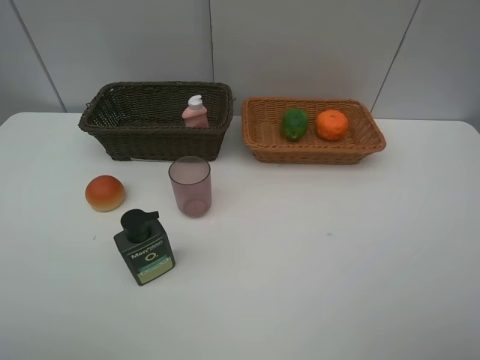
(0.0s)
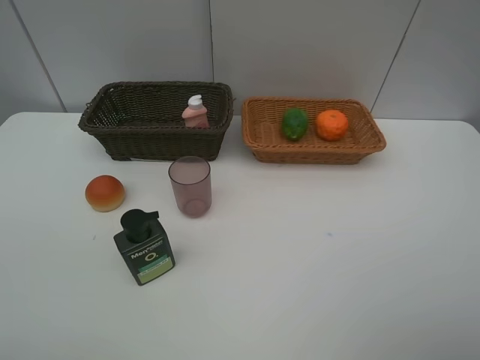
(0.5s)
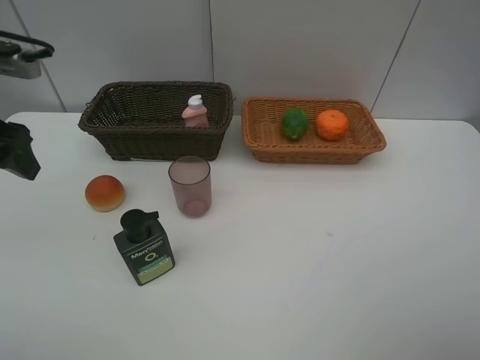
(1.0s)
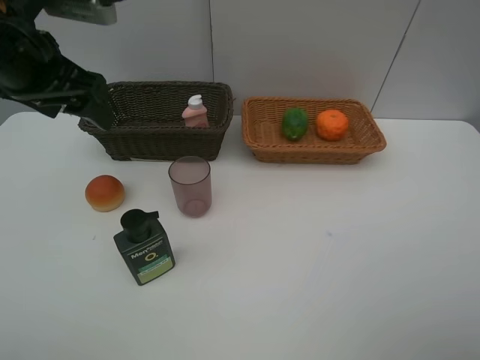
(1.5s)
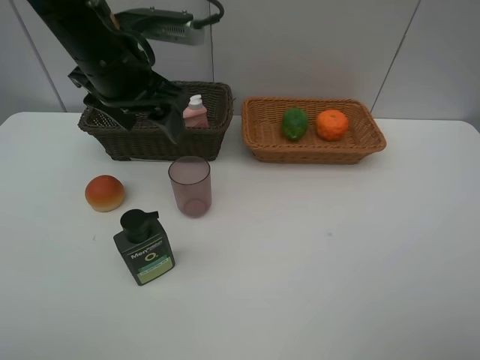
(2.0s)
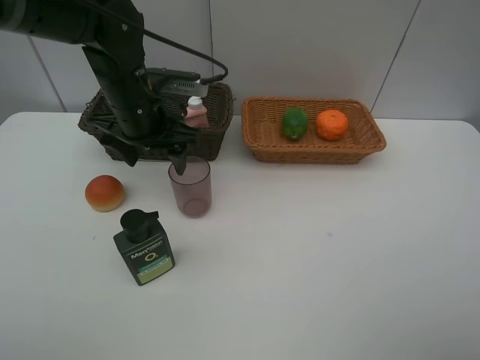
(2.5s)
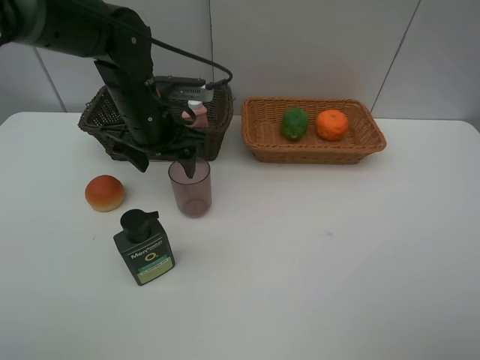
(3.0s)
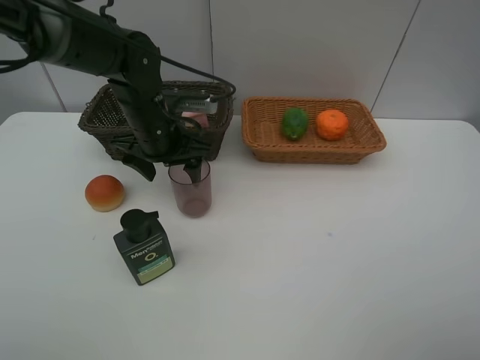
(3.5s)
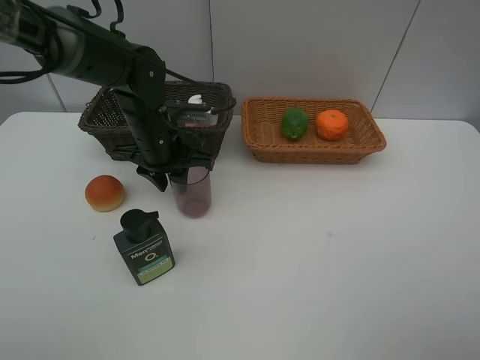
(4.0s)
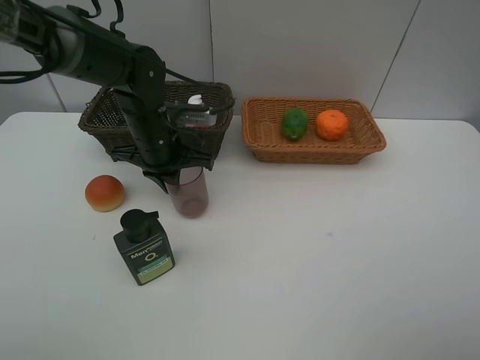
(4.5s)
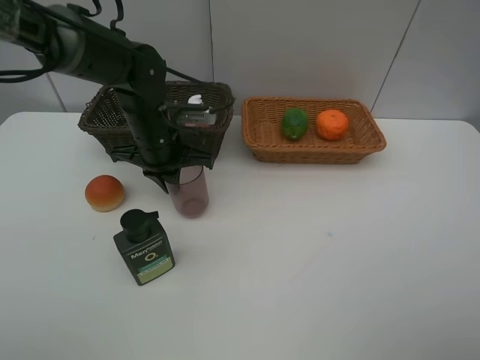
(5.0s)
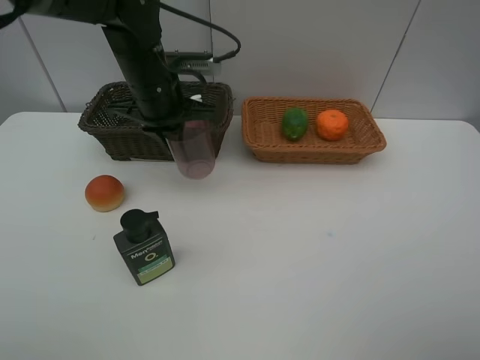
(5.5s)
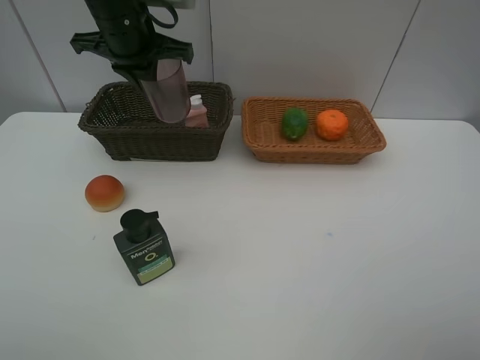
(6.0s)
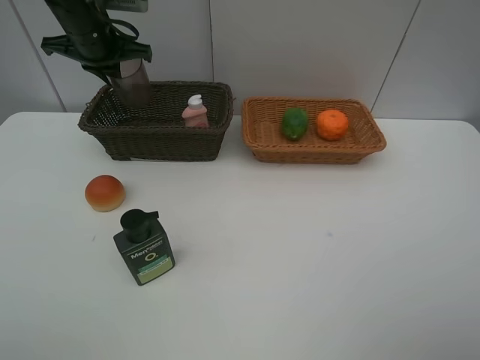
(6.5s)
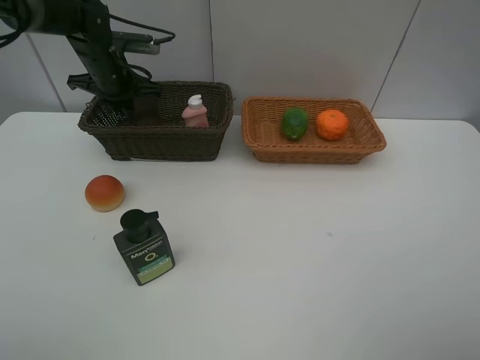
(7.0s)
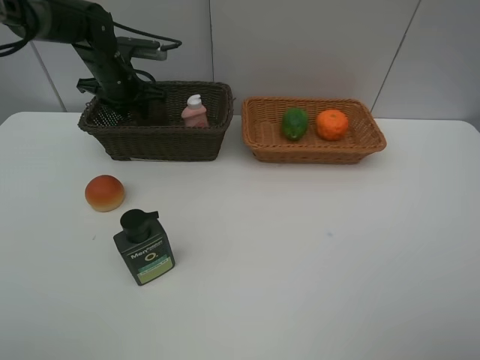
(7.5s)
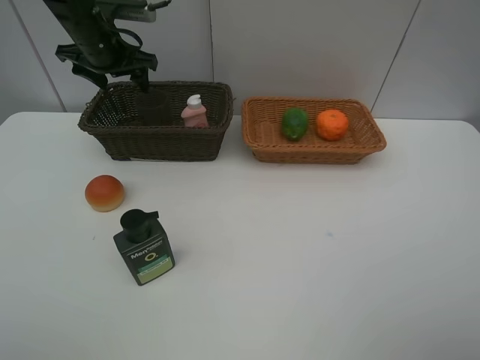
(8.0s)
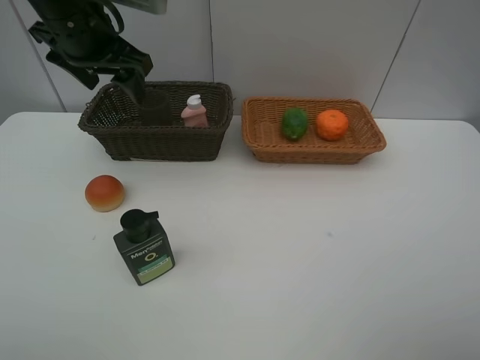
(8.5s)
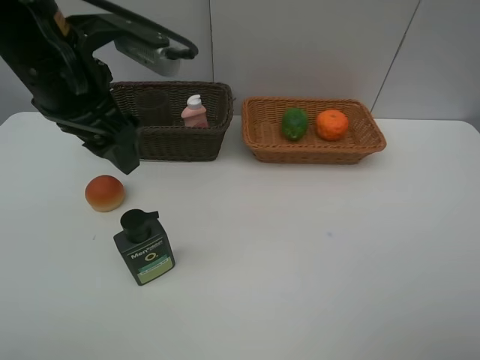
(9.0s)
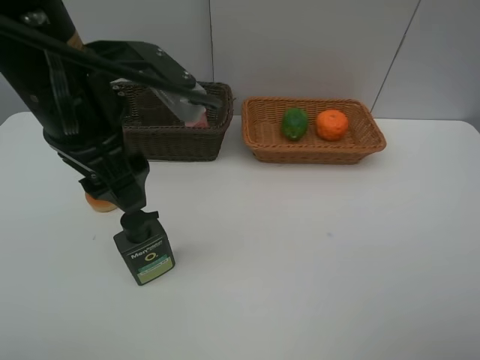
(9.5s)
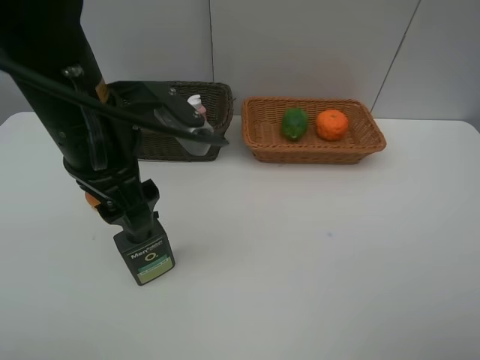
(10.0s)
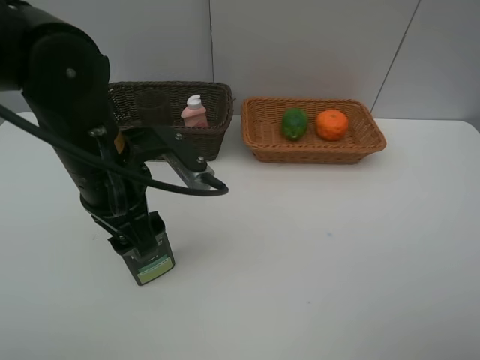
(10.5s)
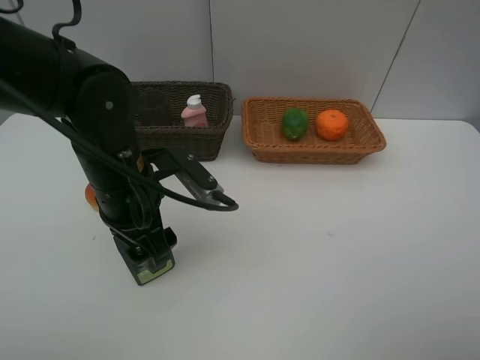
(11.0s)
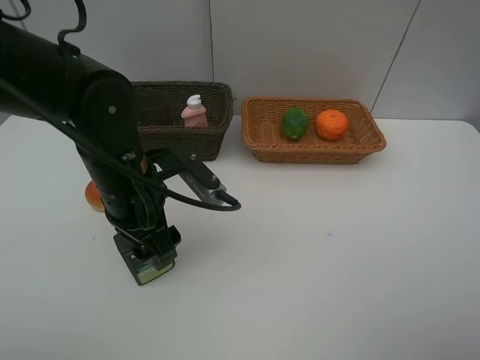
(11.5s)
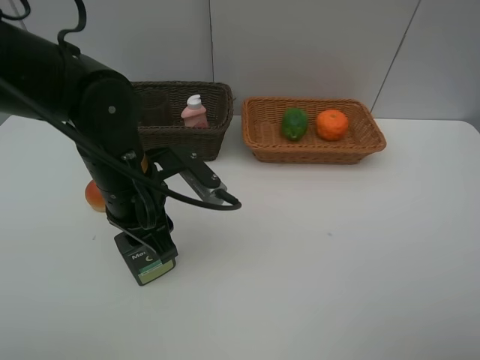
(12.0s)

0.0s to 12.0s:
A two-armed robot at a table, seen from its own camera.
Task of the whole recording: place multiple objects separately in different baskets.
0.0s to 2.0s: The left gripper travels forward and to the right by about 35 cm.
2.0s to 4.0s: The left gripper heads downward, covering about 15 cm, and closes up.
4.0s to 6.0s: The left gripper goes about 15 cm upward.
6.0s to 8.0s: The left gripper shifts approximately 10 cm to the left and forward, and opens its fingers.
8.0s to 10.0s: The left gripper moves backward and to the right, some 25 cm.
10.0s to 12.0s: The left gripper moves downward, approximately 10 cm, and closes.

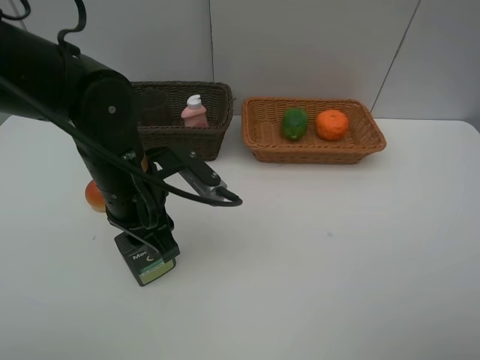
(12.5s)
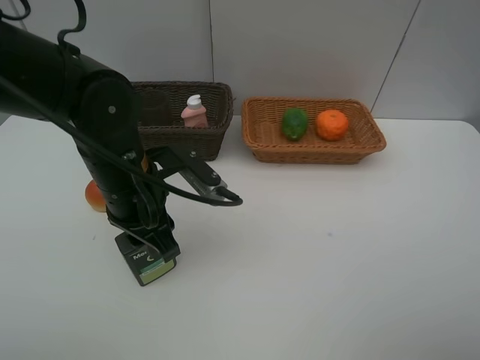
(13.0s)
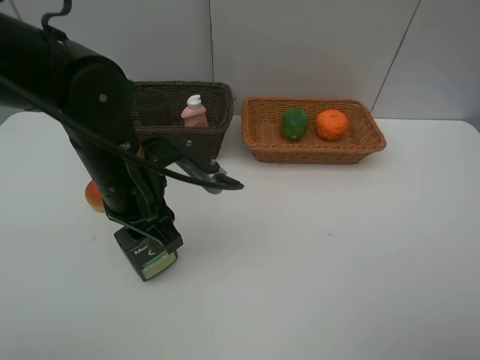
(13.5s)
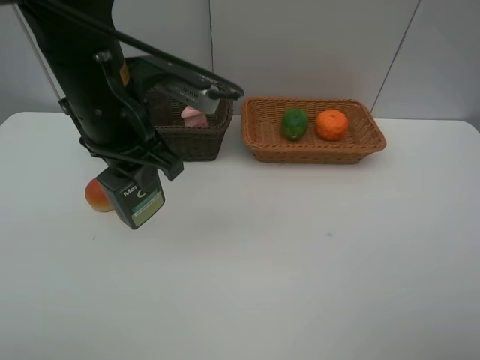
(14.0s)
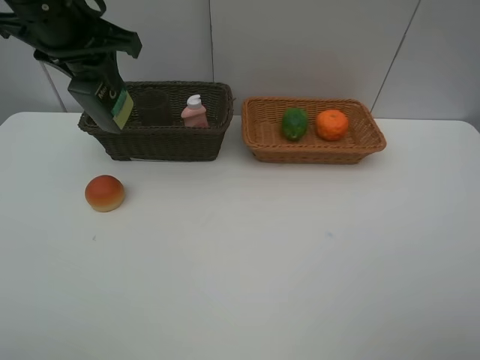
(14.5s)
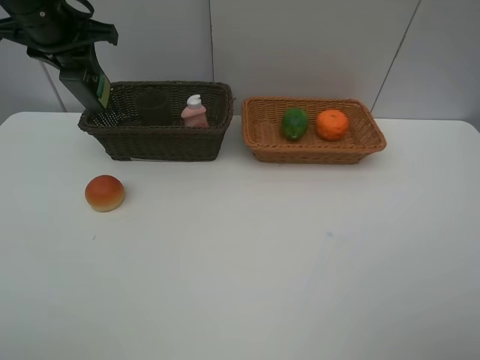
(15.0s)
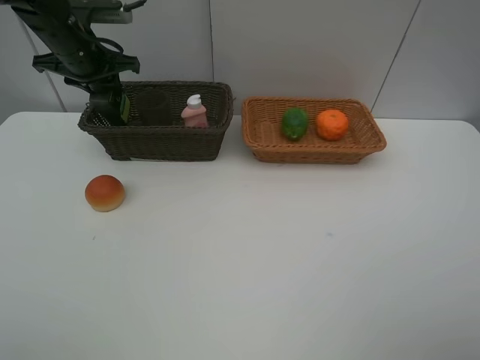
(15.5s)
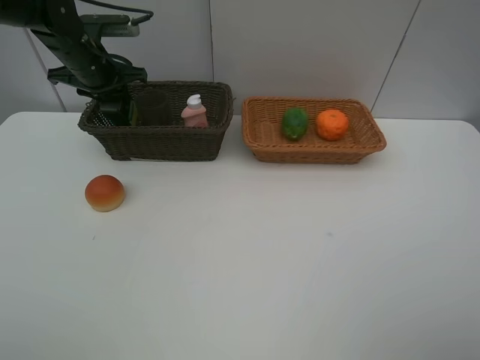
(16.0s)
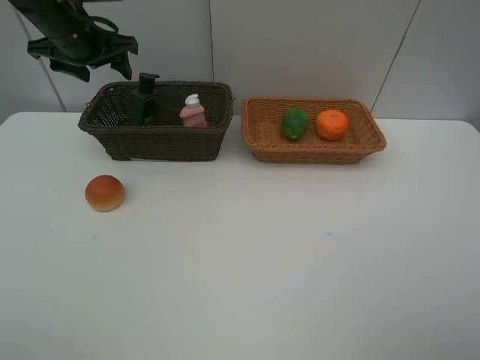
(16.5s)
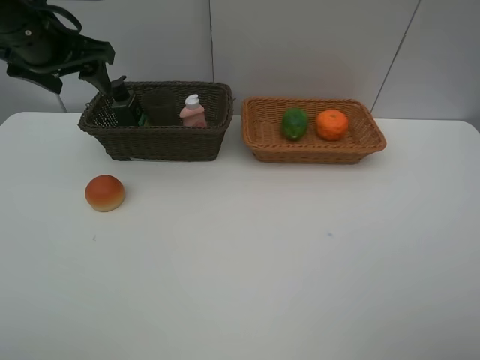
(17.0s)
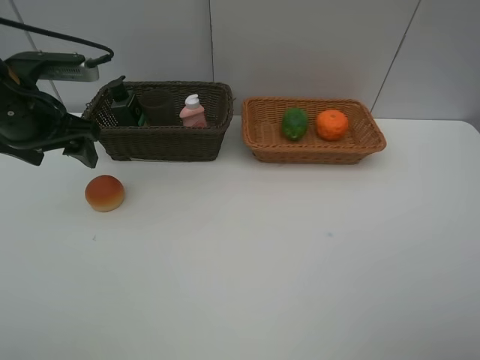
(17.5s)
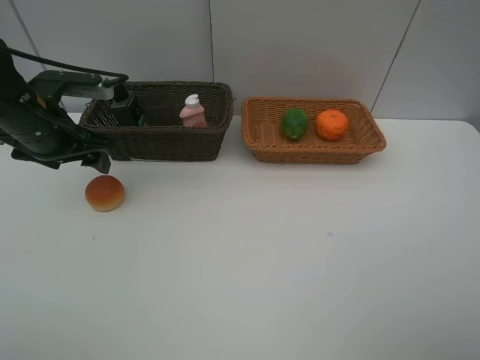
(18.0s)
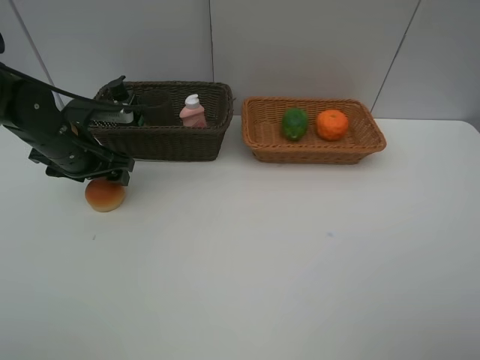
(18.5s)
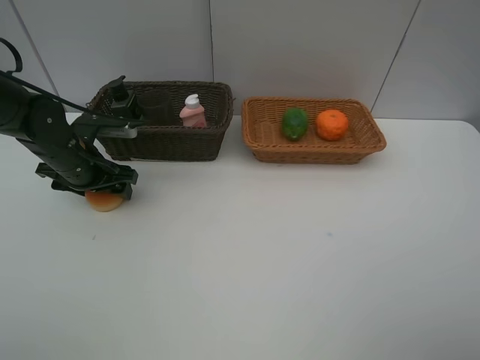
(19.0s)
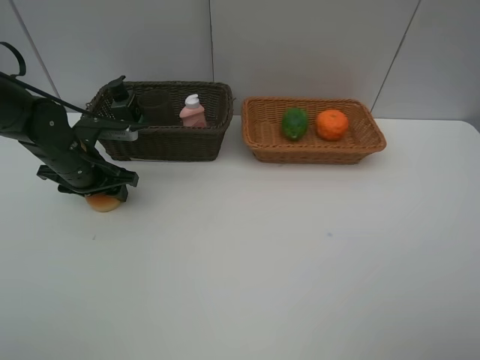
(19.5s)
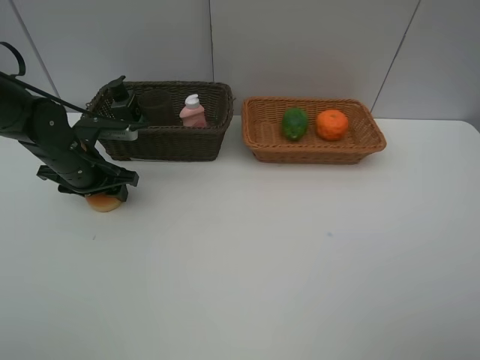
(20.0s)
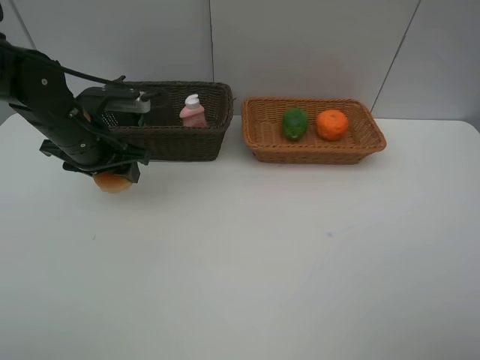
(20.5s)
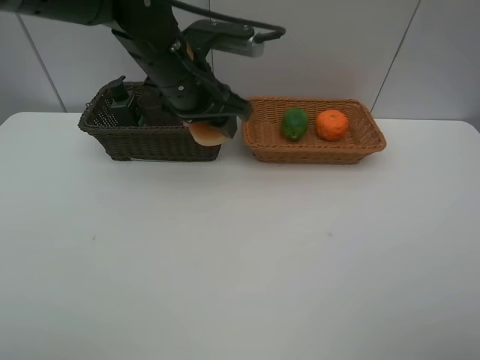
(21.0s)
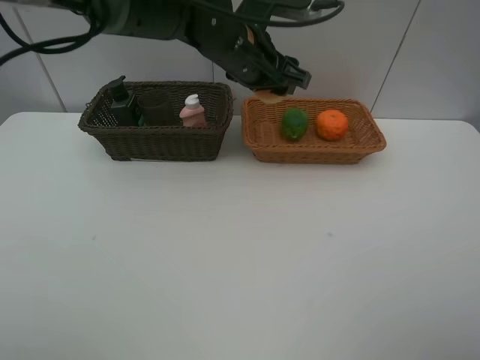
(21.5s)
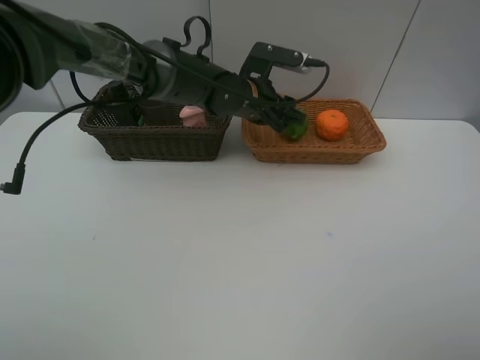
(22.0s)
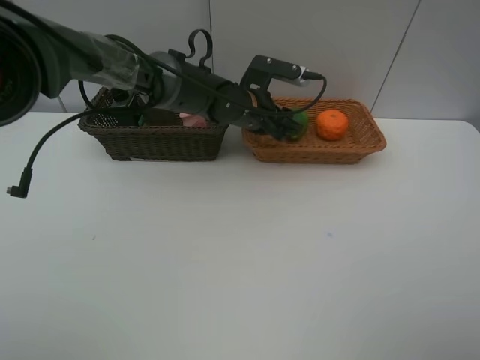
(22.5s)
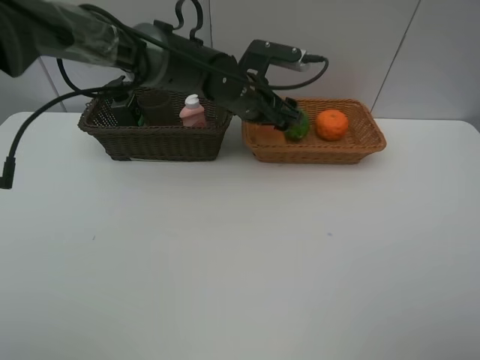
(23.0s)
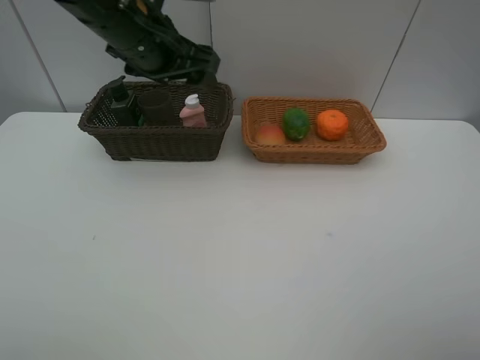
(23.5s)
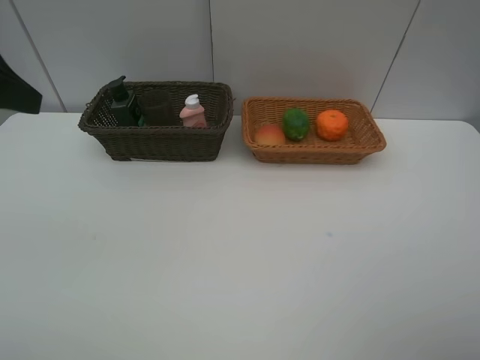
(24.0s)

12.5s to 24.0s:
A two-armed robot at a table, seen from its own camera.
Task of the whole recording: place multiple objects separately in different baskets.
12.5s to 14.5s: The left gripper shifts roughly 20 cm upward, forward and to the left.
14.5s to 16.5s: The left gripper moves forward and downward, some 10 cm, and opens up.
16.5s to 18.5s: The left gripper moves downward and backward, about 15 cm.
18.5s to 20.0s: The grippers move only a little.
20.0s to 22.0s: The left gripper heads to the right, covering about 25 cm.
22.0s to 24.0s: The left gripper travels to the left, backward and upward by about 40 cm.
